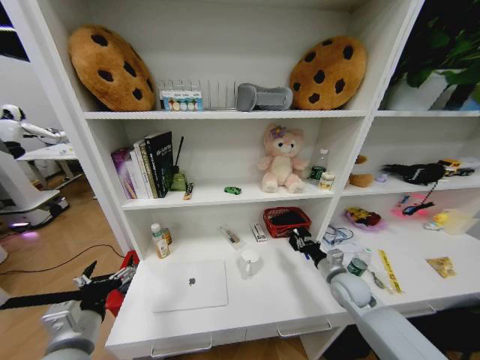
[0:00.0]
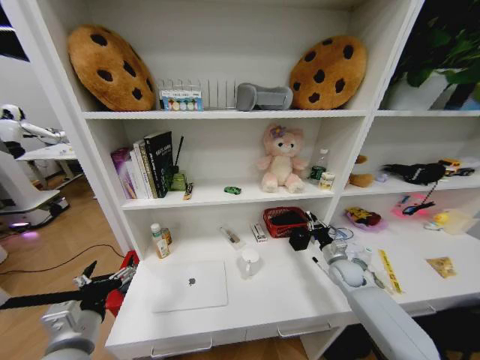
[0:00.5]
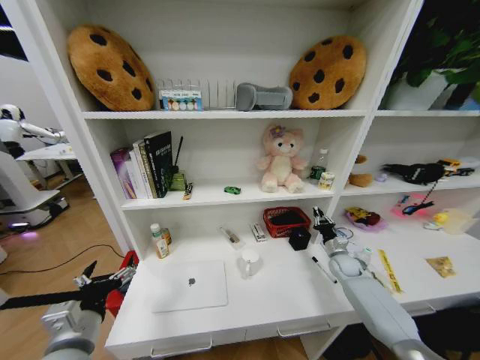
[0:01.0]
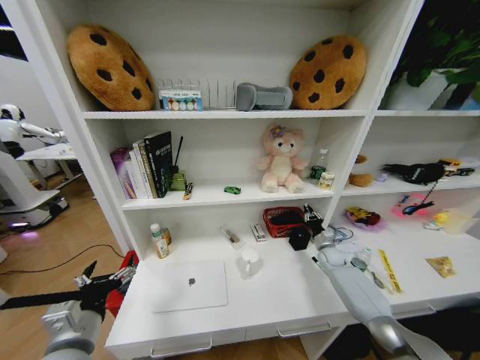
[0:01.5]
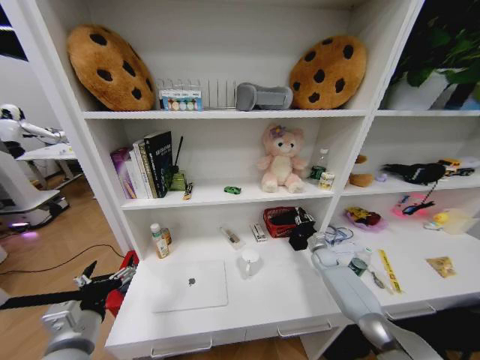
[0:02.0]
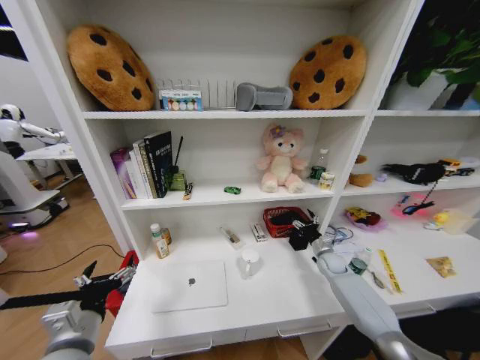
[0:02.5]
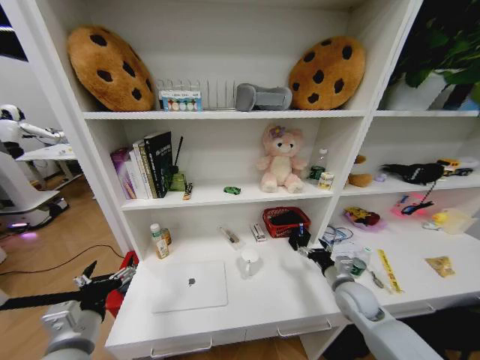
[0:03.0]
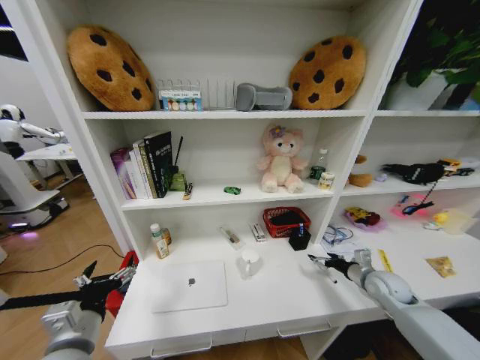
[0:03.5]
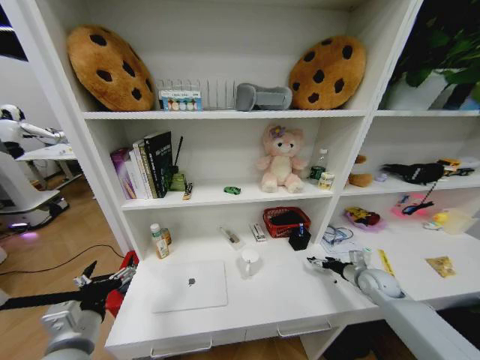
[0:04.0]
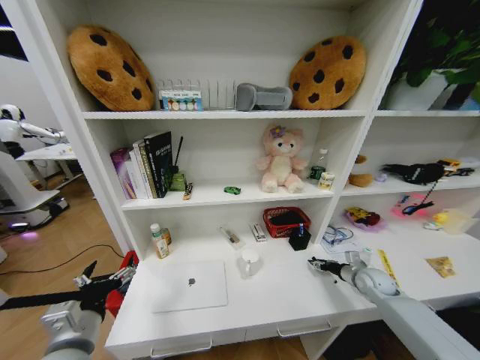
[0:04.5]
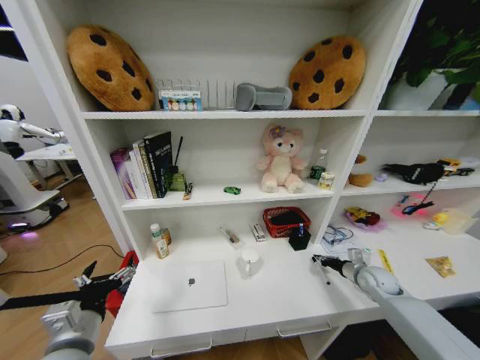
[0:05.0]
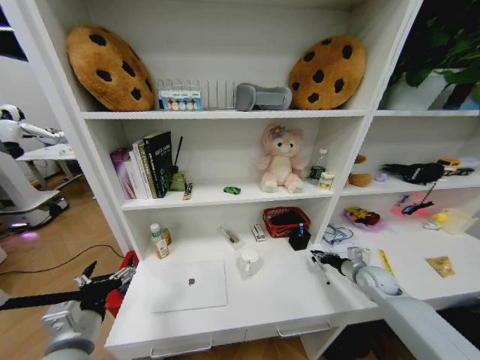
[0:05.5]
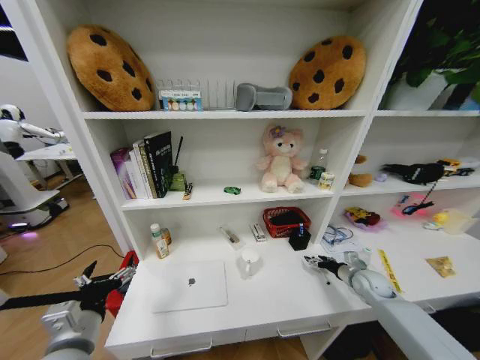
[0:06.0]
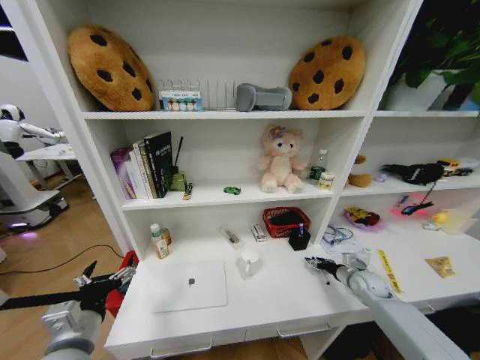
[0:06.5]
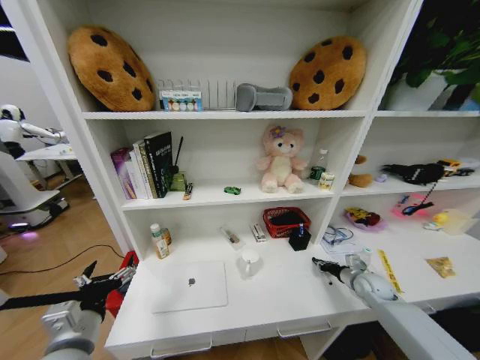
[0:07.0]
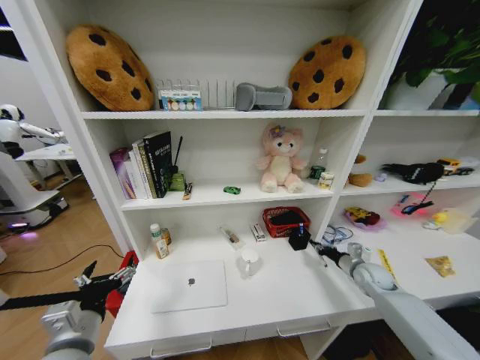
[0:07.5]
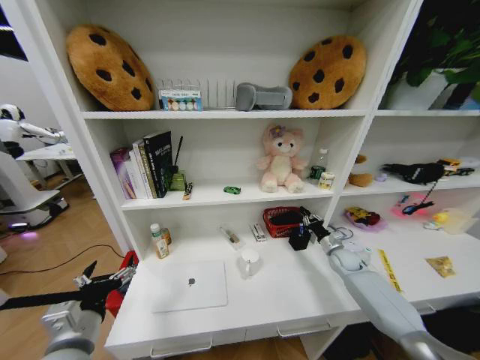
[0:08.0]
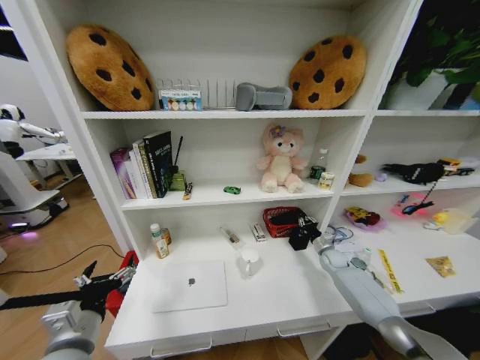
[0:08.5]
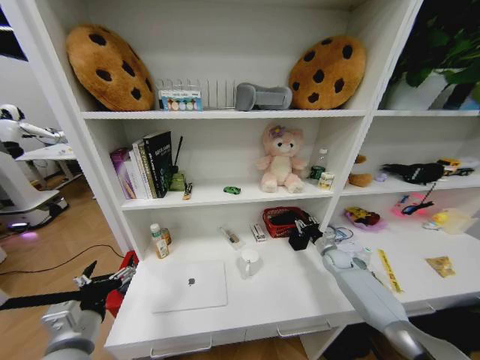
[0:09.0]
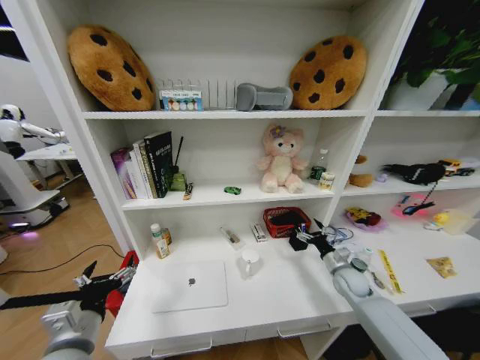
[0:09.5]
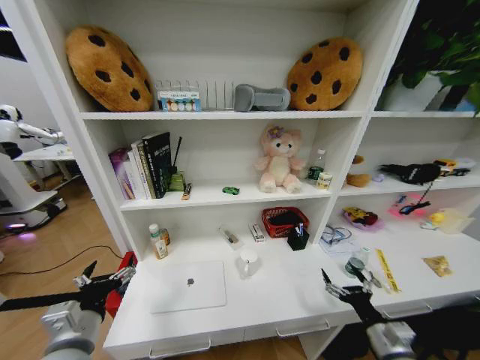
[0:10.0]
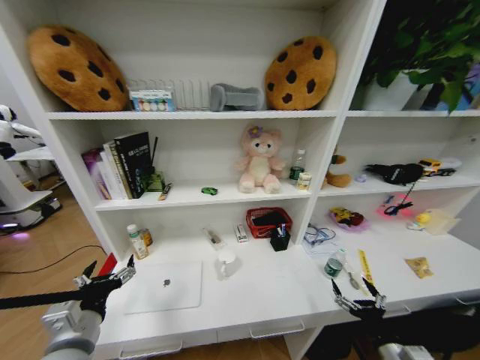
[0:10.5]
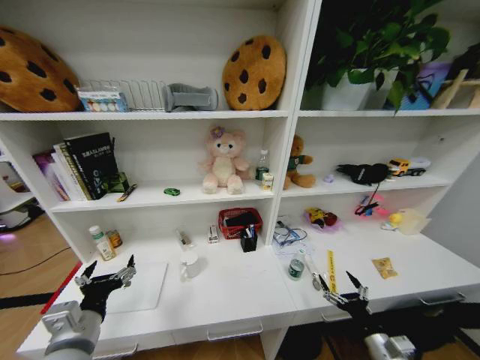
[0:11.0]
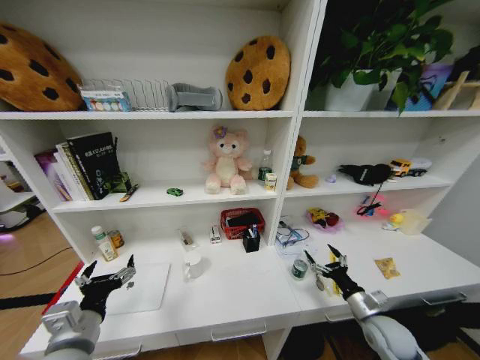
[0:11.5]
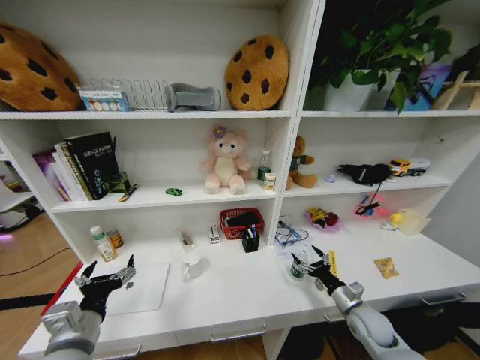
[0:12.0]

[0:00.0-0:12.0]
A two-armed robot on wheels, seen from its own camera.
Task of the whole recording: Organize the objects on the table.
0:00.0 to 0:02.0: The right gripper is displaced forward and downward by roughly 20 cm.
0:02.0 to 0:04.0: The right gripper shifts some 15 cm backward, to the right and upward, and opens up.
0:04.0 to 0:06.0: The right gripper closes, then opens again.
0:06.0 to 0:08.0: The right gripper is displaced forward by about 10 cm, and closes up.
0:08.0 to 0:10.0: The right gripper goes some 30 cm backward, and opens its fingers.
0:10.0 to 0:12.0: The right gripper is displaced forward and downward by about 15 cm.

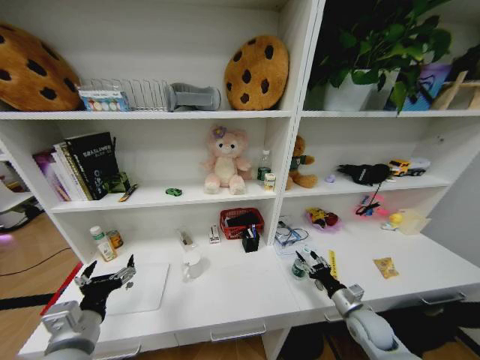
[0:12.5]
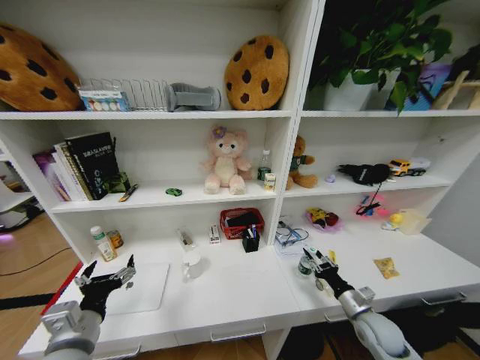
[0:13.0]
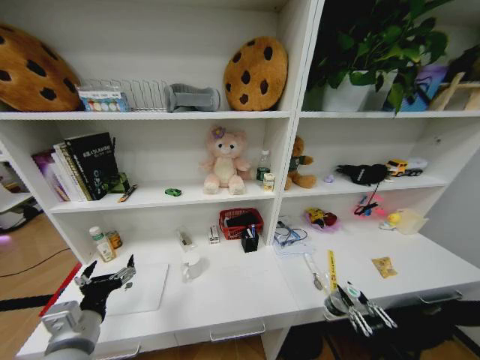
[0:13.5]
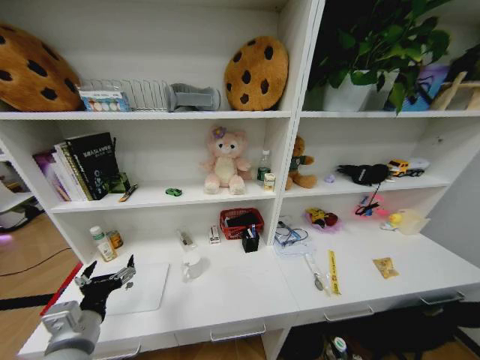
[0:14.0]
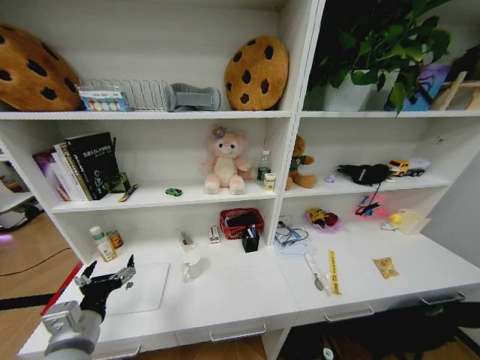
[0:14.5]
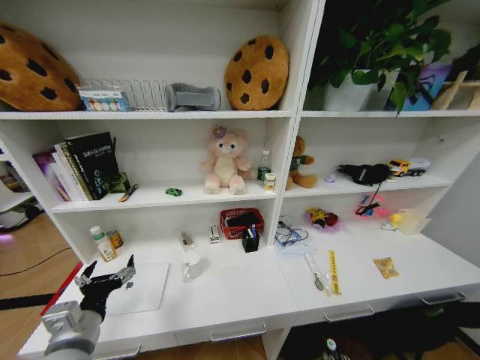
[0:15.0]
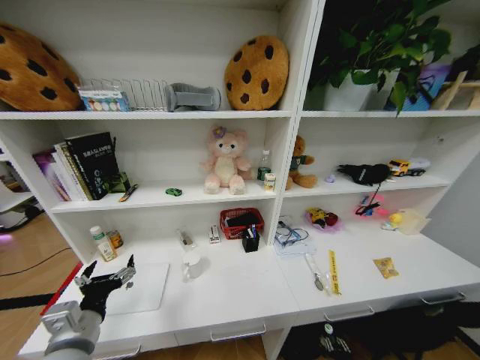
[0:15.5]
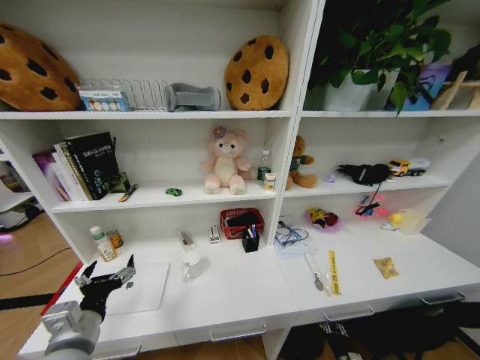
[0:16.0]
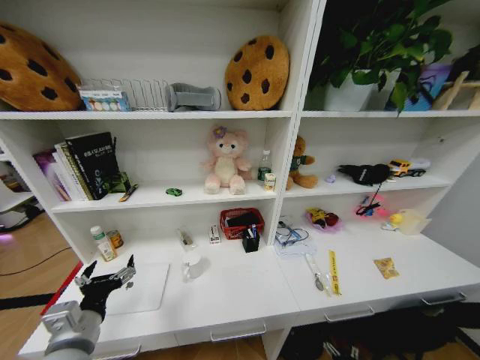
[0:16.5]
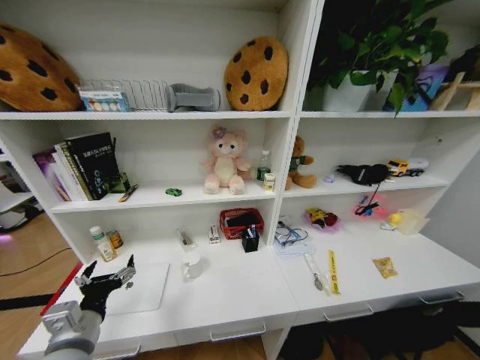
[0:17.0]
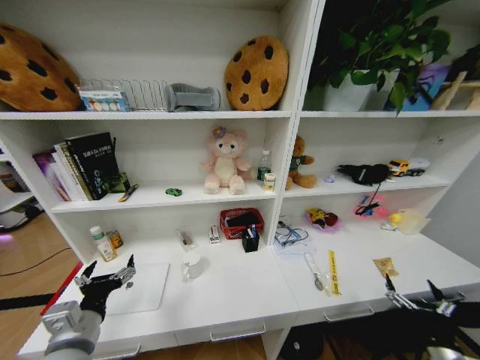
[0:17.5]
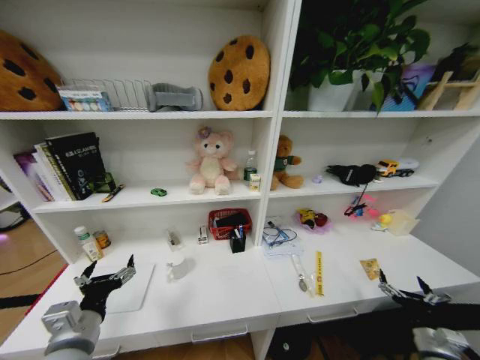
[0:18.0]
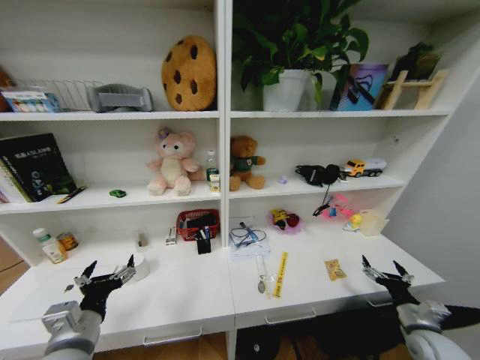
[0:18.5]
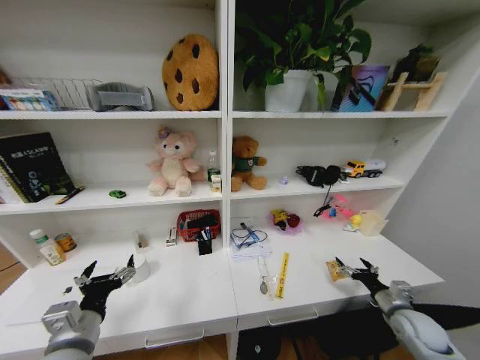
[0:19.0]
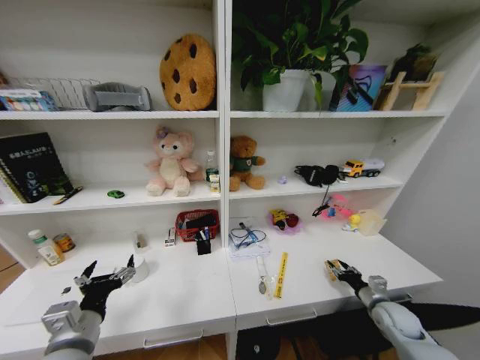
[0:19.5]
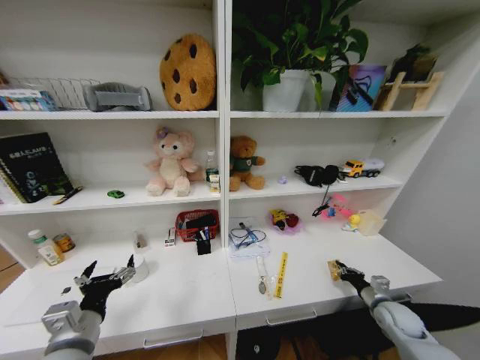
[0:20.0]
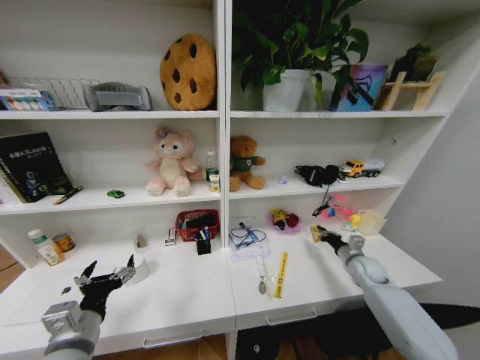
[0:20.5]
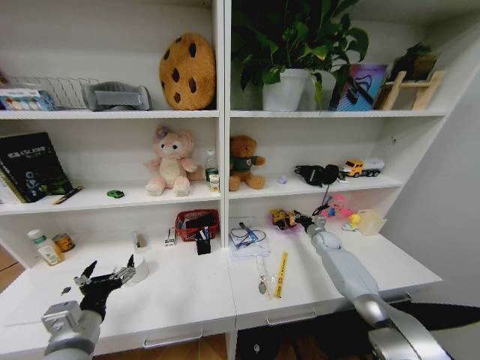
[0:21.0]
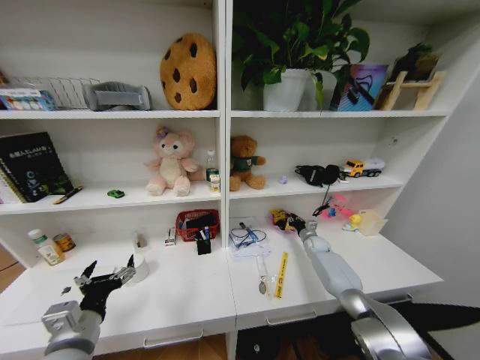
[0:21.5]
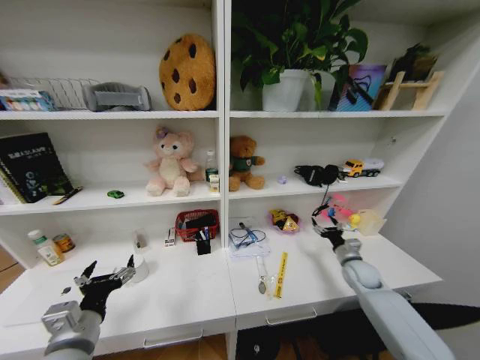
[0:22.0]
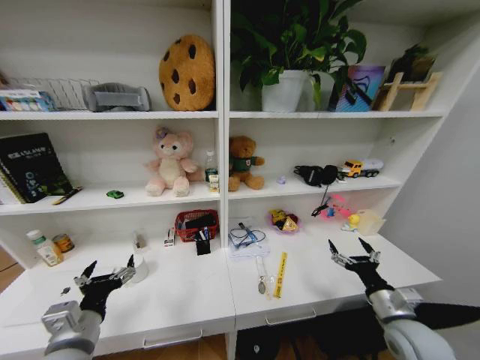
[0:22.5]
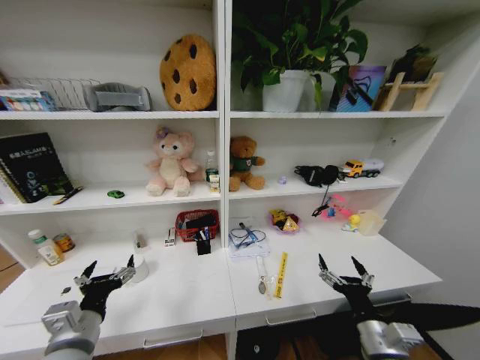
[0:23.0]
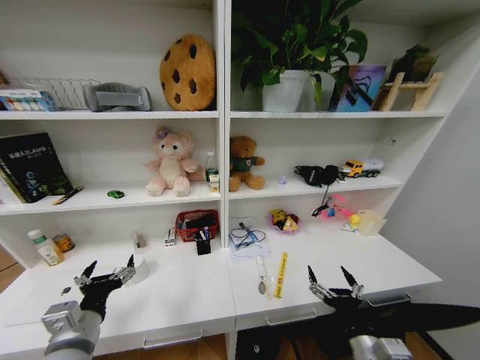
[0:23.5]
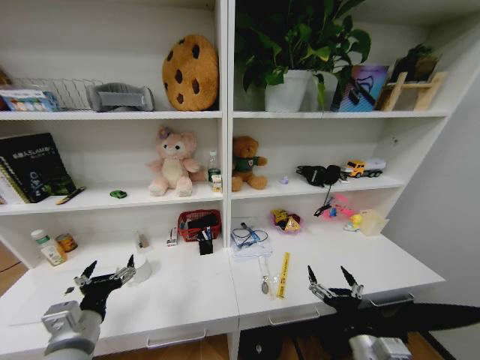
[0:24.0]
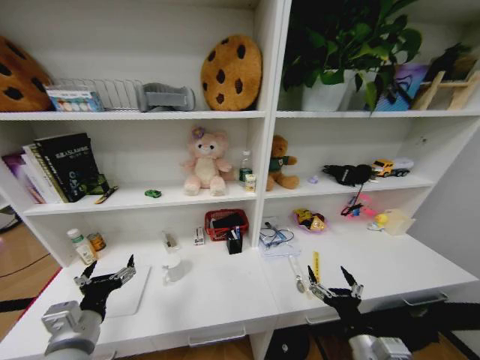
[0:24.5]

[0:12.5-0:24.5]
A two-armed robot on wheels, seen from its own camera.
Task of the whole recording: Organize the objects on the table.
0:12.5 to 0:14.5: The right gripper is displaced backward and downward by about 35 cm.
0:16.5 to 0:18.5: The right gripper shifts approximately 30 cm upward.
0:18.5 to 0:20.5: The right gripper shifts about 25 cm forward, and closes.
0:20.5 to 0:22.5: The right gripper travels backward by some 25 cm, and opens.
0:22.5 to 0:24.5: The right gripper goes roughly 15 cm to the left and backward.

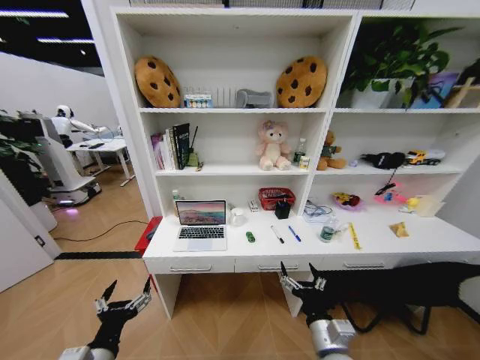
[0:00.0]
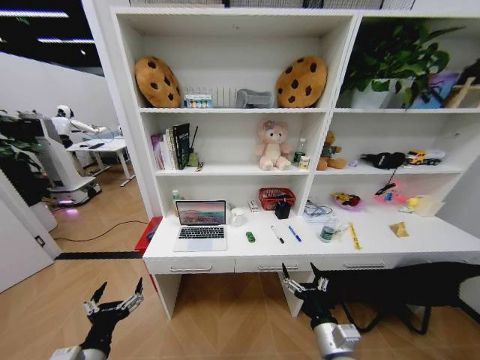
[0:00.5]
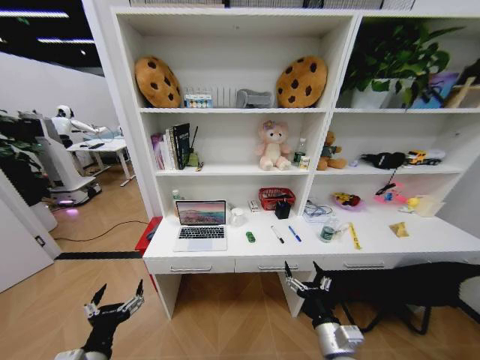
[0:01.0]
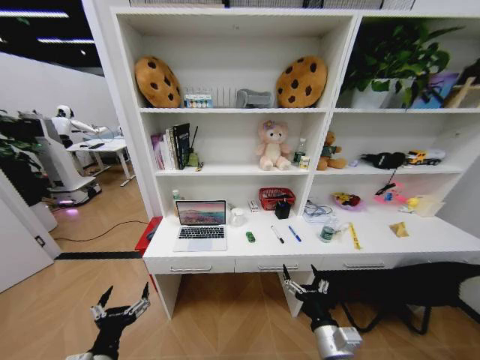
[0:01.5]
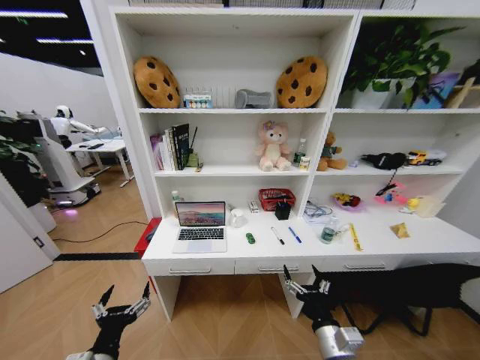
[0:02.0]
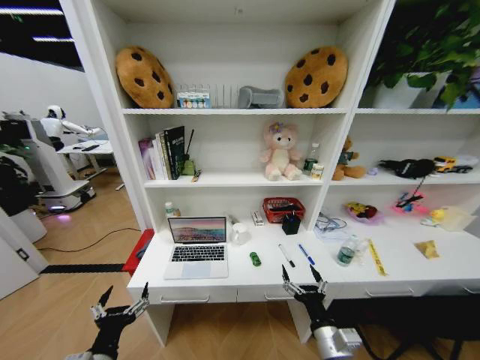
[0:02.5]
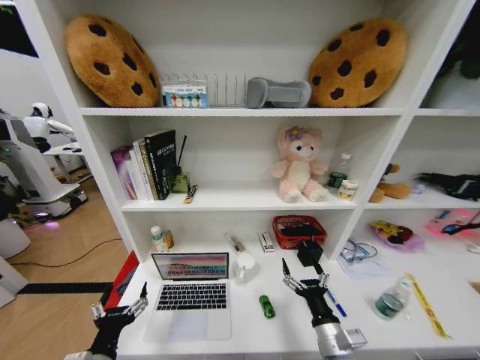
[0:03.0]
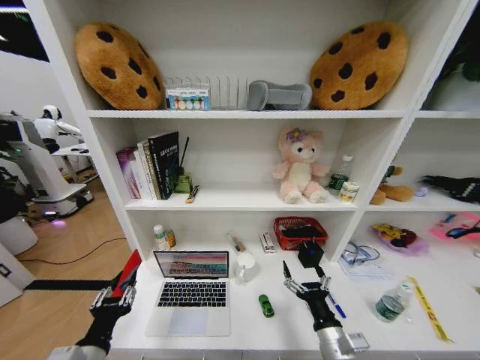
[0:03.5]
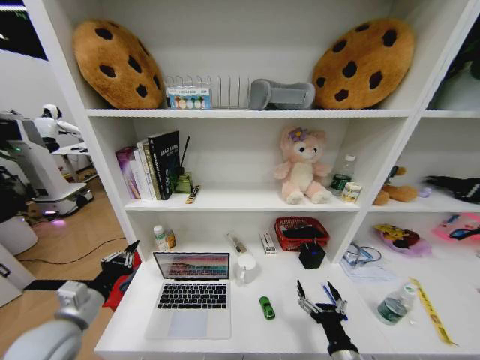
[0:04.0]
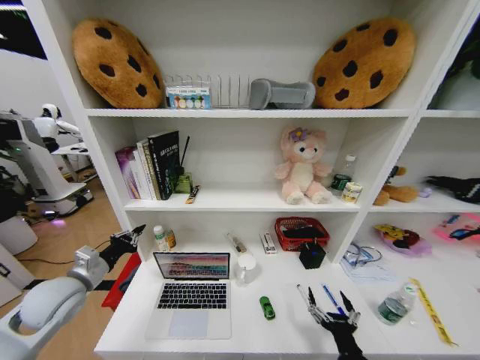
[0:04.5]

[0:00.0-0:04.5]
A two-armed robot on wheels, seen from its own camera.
Task of the whole recording: Organize the objects on the table.
0:02.0 to 0:04.5: The left gripper shifts roughly 25 cm forward, to the left and upward, and closes its fingers. Meanwhile the right gripper moves backward, about 5 cm.
